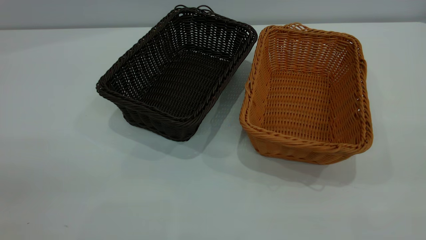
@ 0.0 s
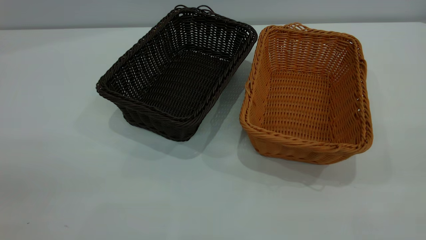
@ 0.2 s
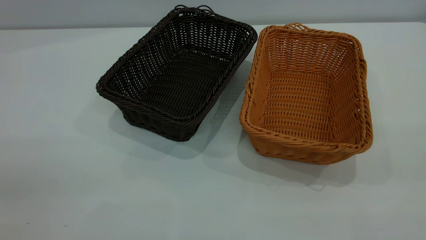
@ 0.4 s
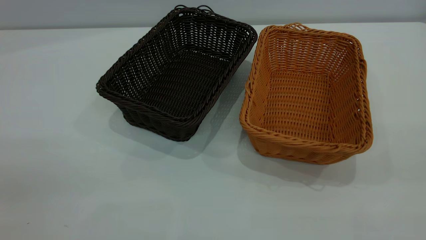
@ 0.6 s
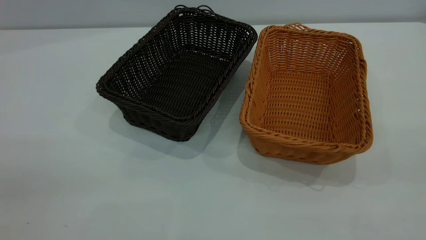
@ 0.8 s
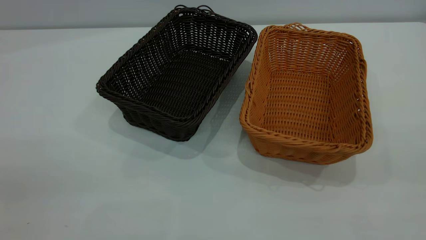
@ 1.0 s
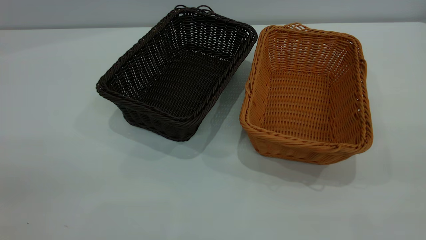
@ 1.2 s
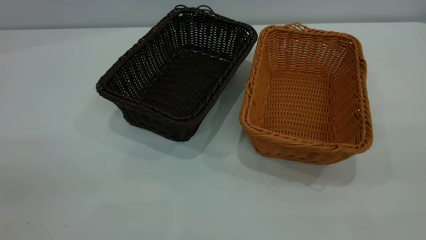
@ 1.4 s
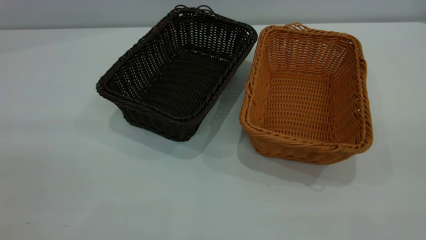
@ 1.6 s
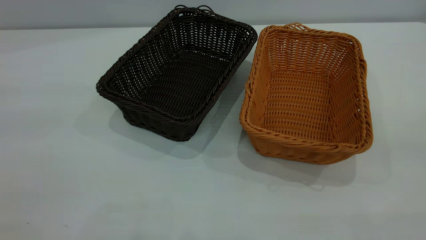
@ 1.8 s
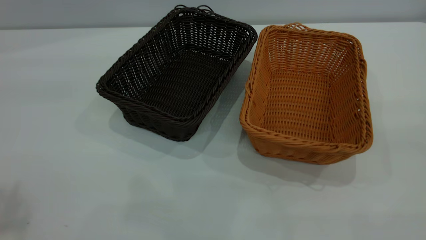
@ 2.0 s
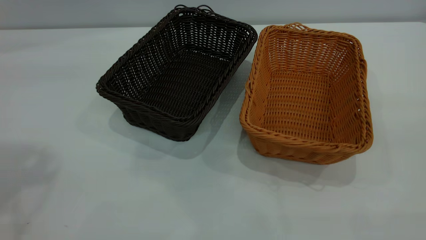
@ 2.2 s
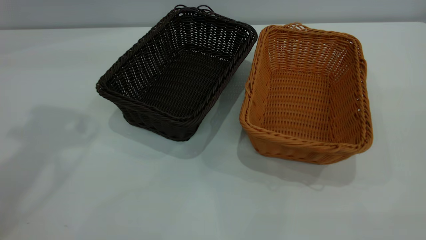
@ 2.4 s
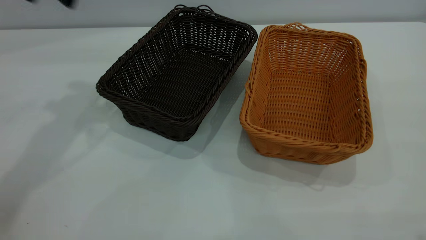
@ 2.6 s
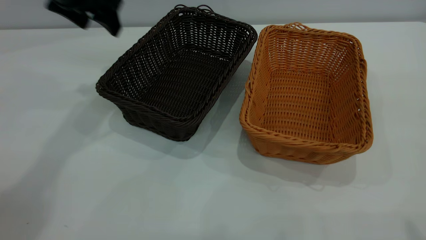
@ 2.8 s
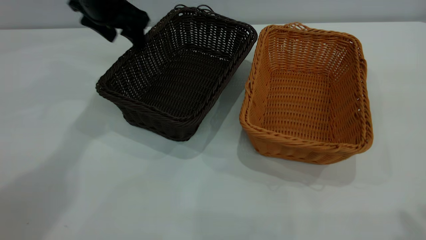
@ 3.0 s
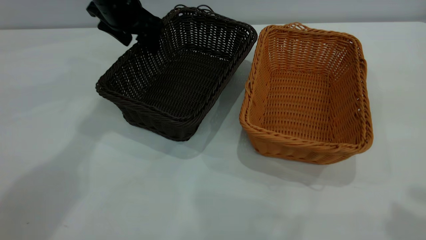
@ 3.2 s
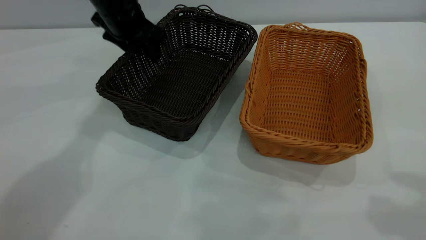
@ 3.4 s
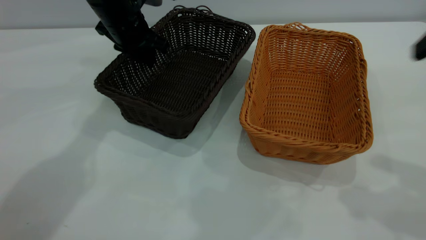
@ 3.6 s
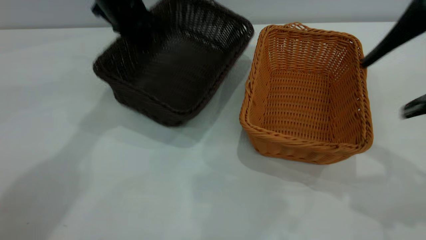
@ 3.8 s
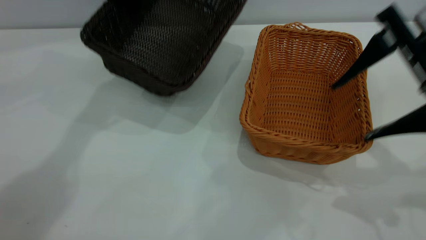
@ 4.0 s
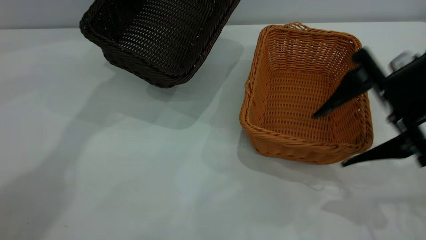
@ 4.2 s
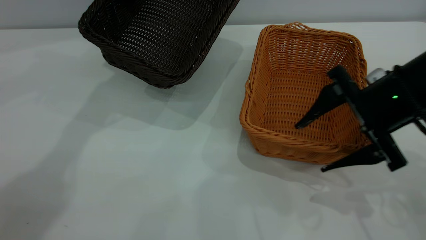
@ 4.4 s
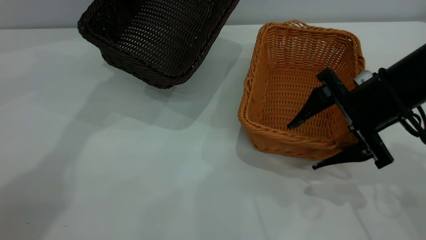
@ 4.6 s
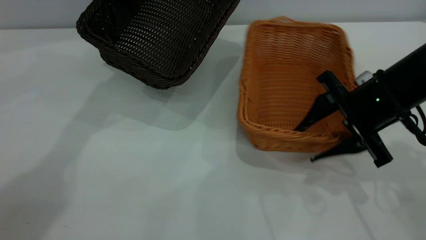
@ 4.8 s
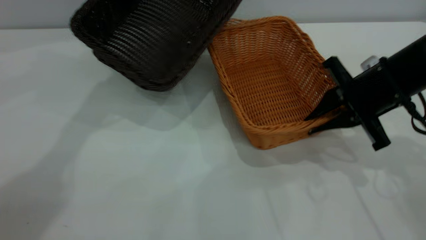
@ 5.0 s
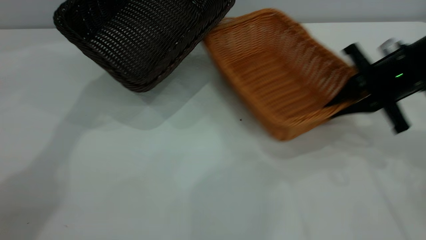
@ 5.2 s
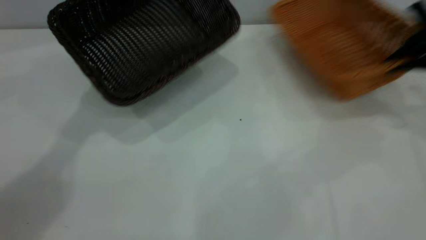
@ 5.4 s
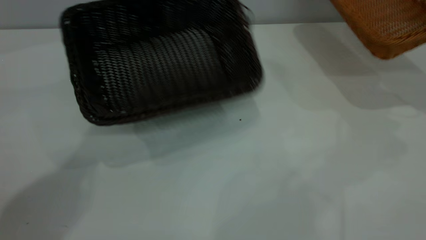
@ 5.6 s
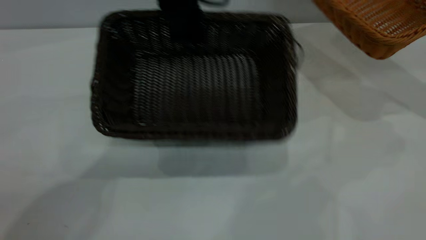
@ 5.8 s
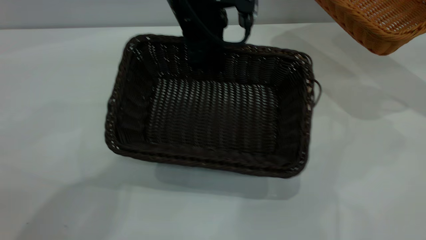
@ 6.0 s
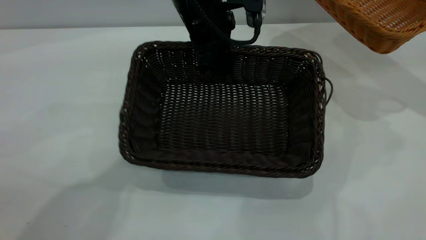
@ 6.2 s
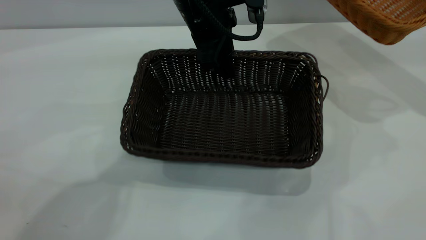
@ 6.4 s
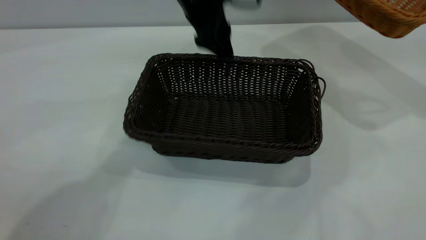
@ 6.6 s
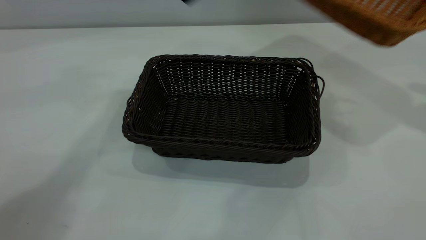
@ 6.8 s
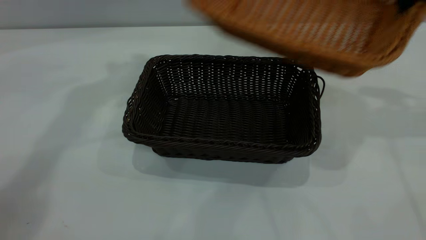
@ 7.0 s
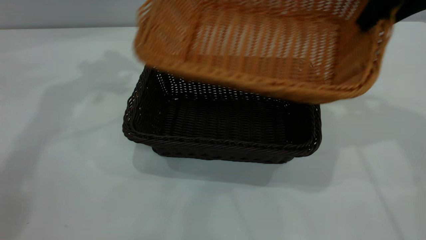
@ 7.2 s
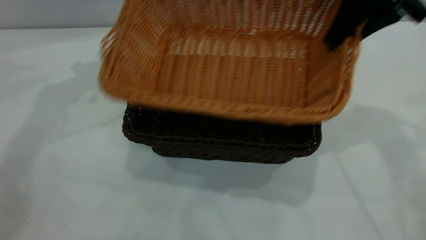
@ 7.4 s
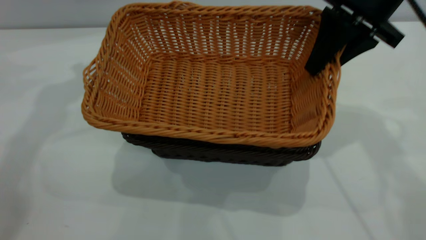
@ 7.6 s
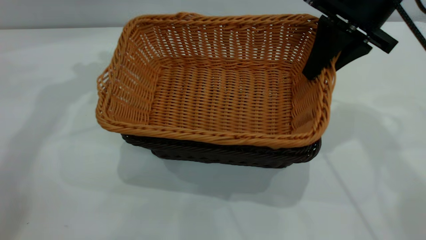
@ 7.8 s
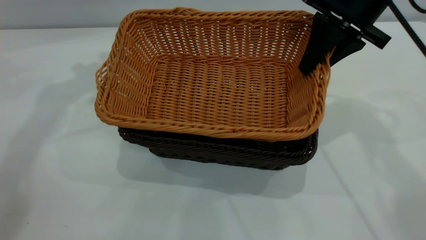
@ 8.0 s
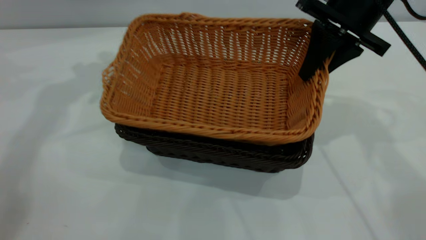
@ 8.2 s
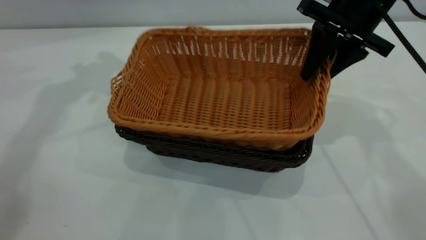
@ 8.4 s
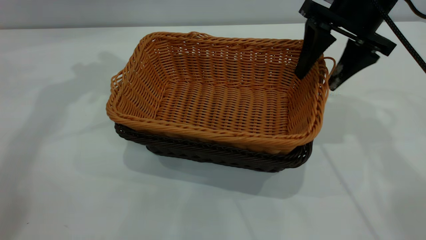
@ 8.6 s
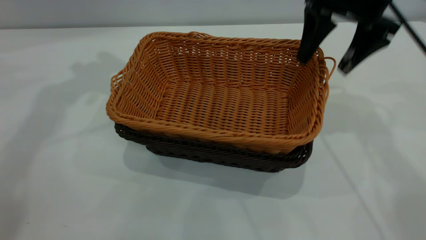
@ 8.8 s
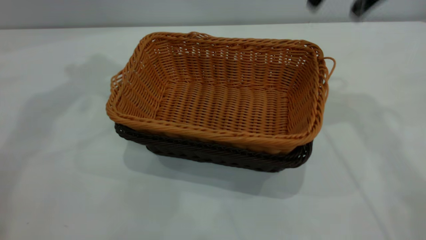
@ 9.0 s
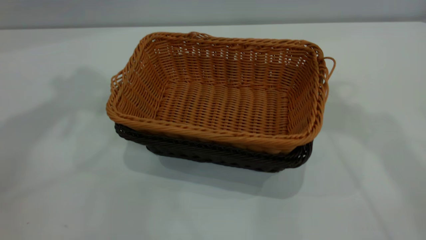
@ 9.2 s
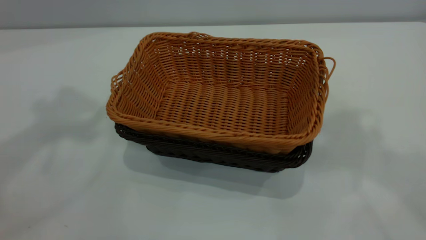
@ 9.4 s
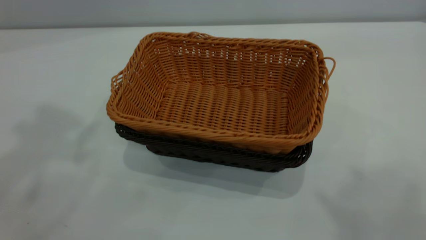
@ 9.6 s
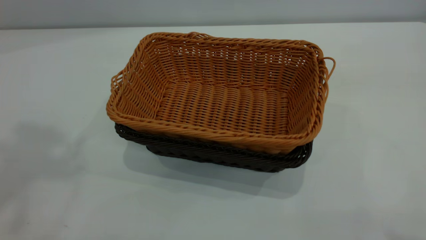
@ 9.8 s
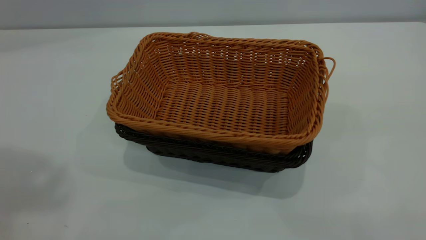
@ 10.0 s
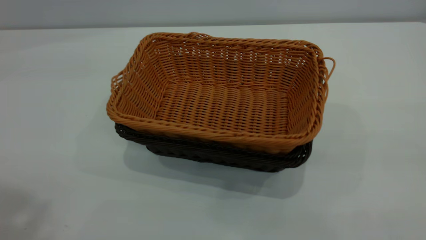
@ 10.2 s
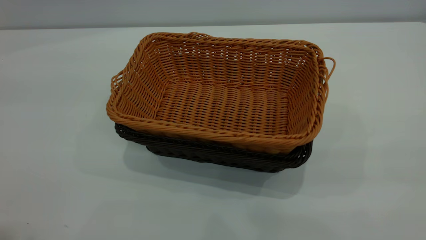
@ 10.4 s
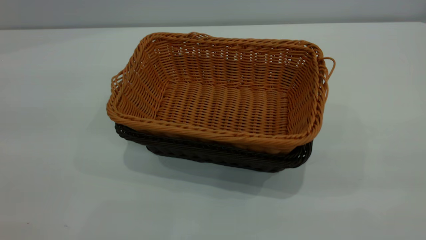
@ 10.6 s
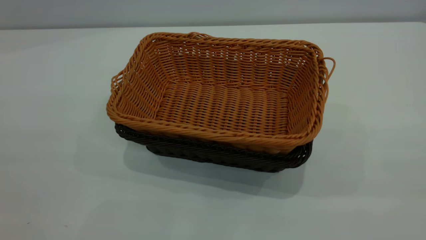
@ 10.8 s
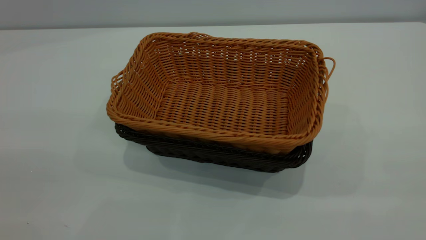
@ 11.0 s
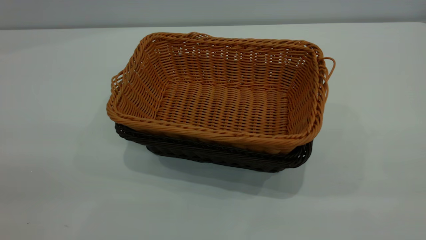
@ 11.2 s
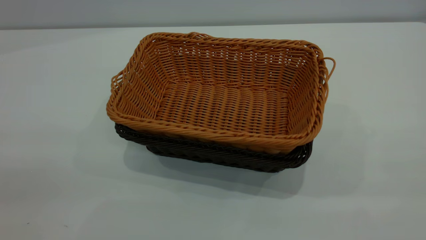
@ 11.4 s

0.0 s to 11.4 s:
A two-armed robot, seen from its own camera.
Task of the whole recording: the left gripper grasp the black basket and place it in the center of the table, the right gripper grasp the brown basket and place it inside the black one.
Step, 0.0 to 5.4 s: Pick up the light basket with the right gripper.
Step, 5.6 to 6.6 s: Move the dark basket to the center of view.
Step, 6.8 to 8.8 s: Place the light basket on the dark basket.
0.0 to 1.4 s: The two grippers keep their place.
1.4 to 2.8 s: The left gripper goes roughly 50 cm forward.
2.8 to 4.2 s: The left gripper goes about 5 cm forward, reaches approximately 10 cm downward, then returns, and closes its fingers, while the right gripper travels downward and forward by approximately 30 cm.
4.2 to 5.6 s: The left gripper travels to the right by about 5 cm. The right gripper shifts roughly 25 cm to the right and forward, and closes its fingers.
5.6 to 7.2 s: The right gripper travels to the left by some 20 cm; the left gripper goes about 15 cm to the left and upward, and opens its fingers.
7.2 to 8.6 s: The right gripper is displaced downward by approximately 5 cm, and opens.
8.6 to 10.0 s: The two grippers go roughly 40 cm backward and upward.
